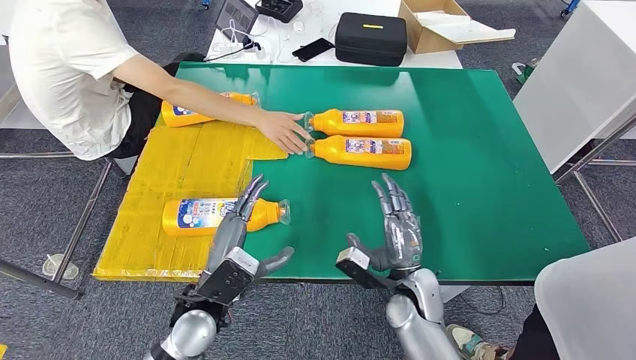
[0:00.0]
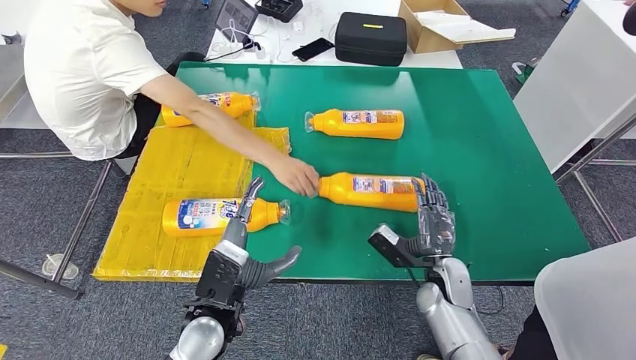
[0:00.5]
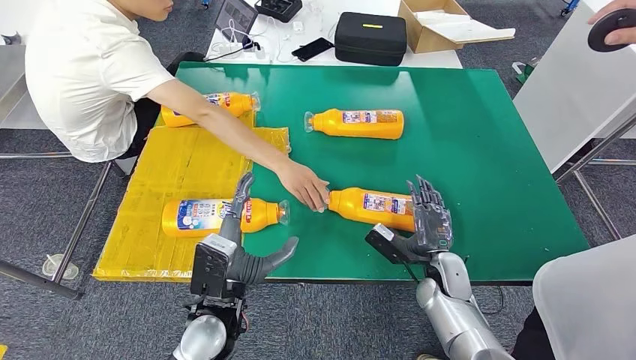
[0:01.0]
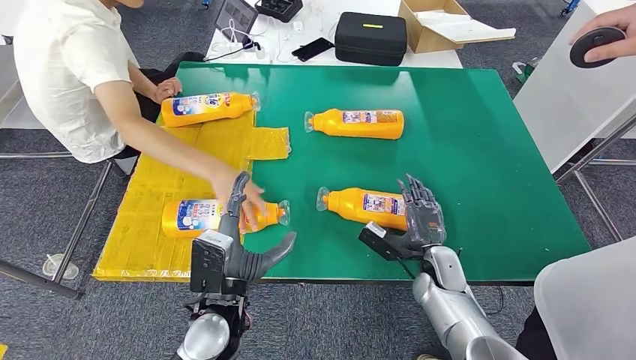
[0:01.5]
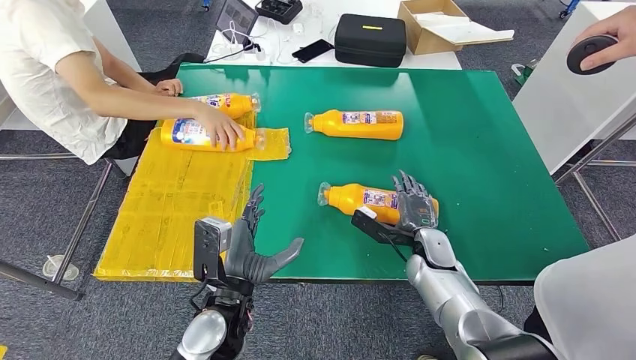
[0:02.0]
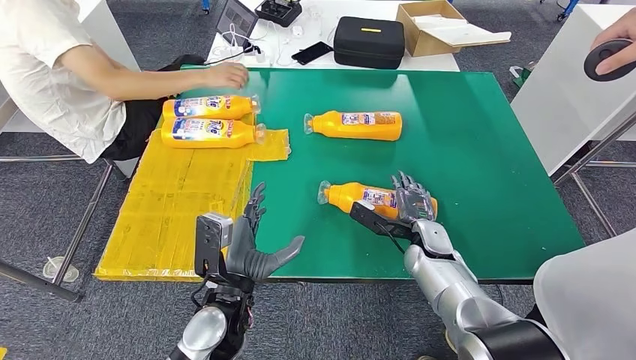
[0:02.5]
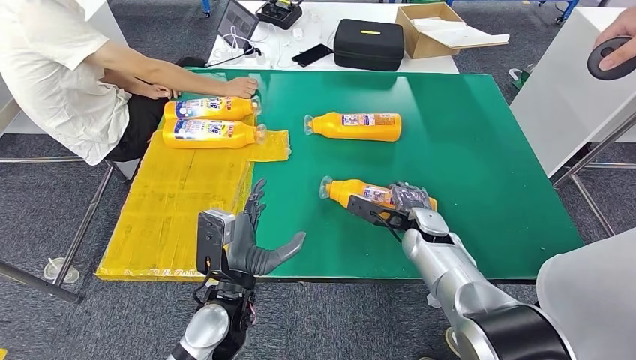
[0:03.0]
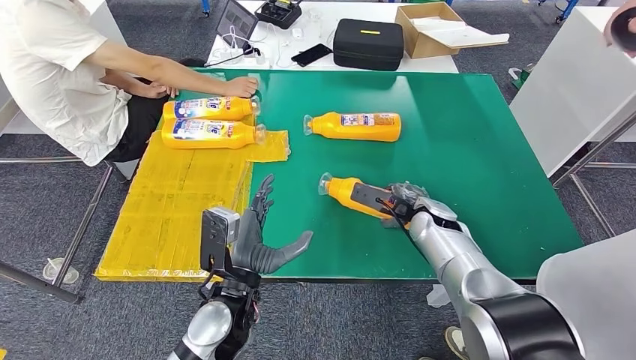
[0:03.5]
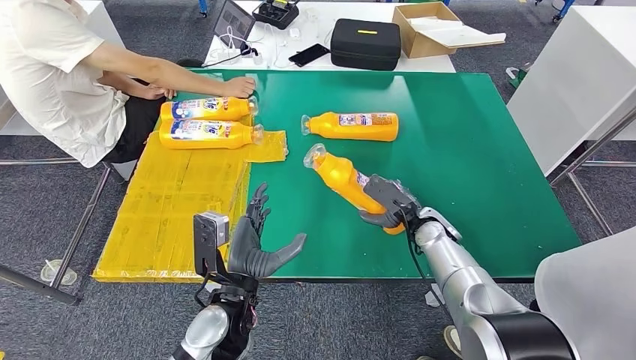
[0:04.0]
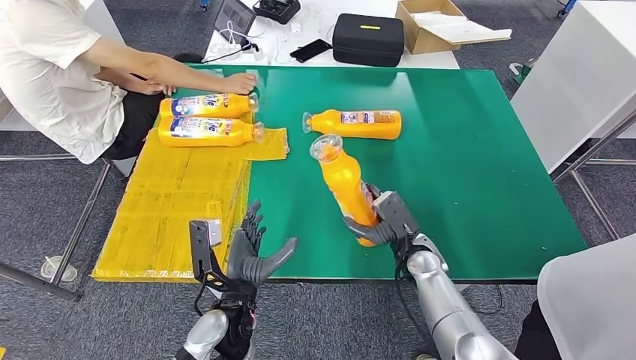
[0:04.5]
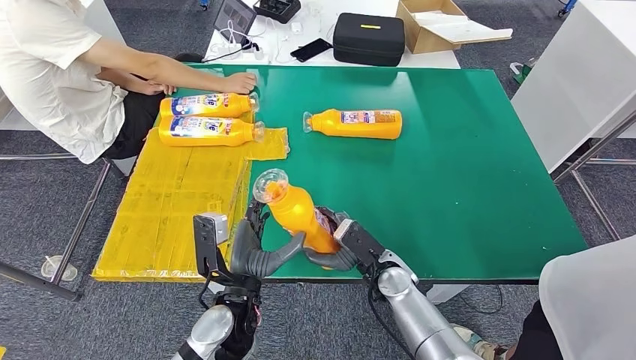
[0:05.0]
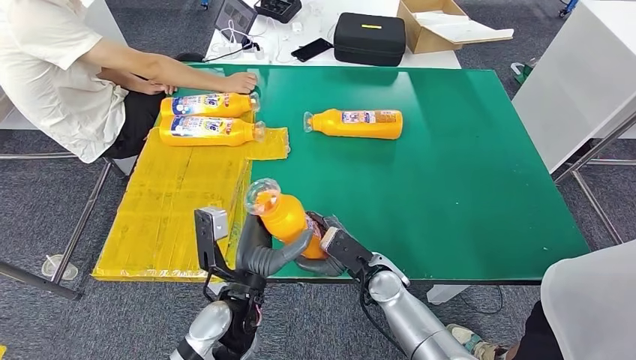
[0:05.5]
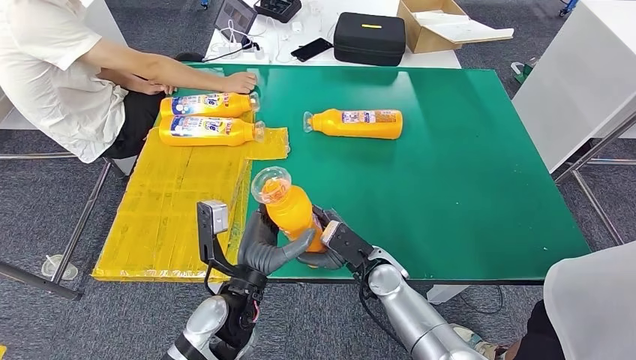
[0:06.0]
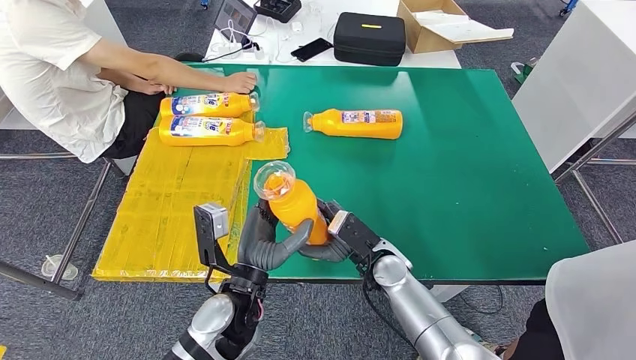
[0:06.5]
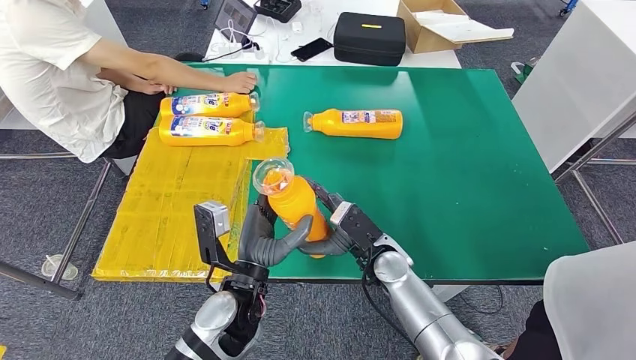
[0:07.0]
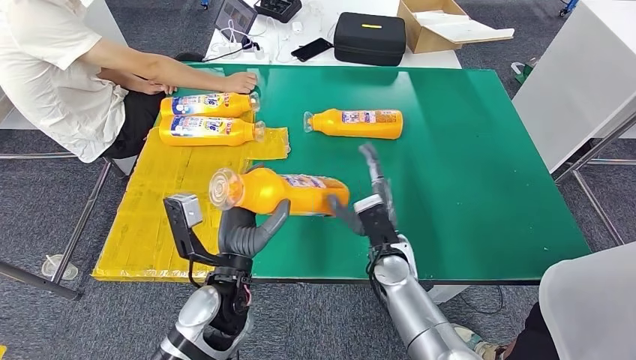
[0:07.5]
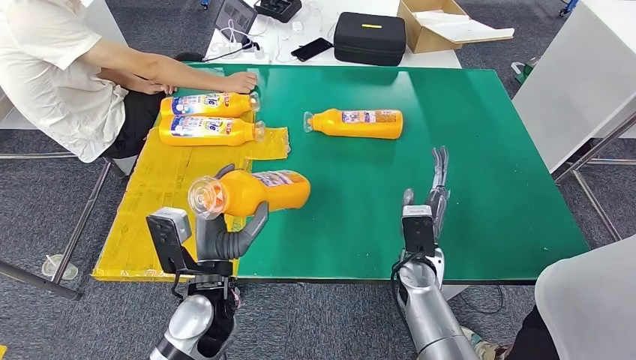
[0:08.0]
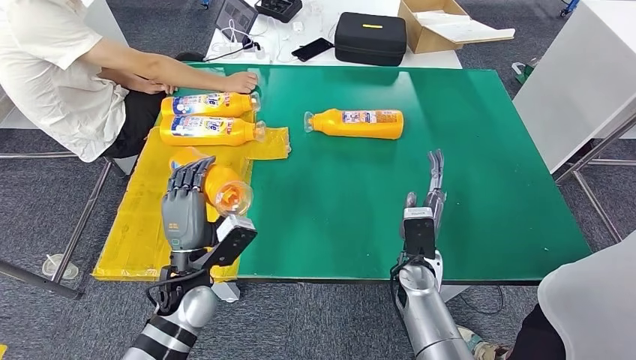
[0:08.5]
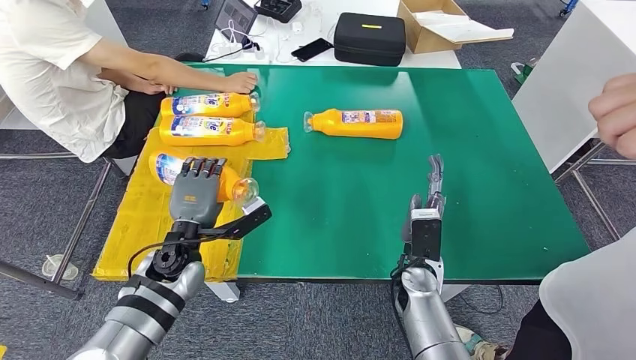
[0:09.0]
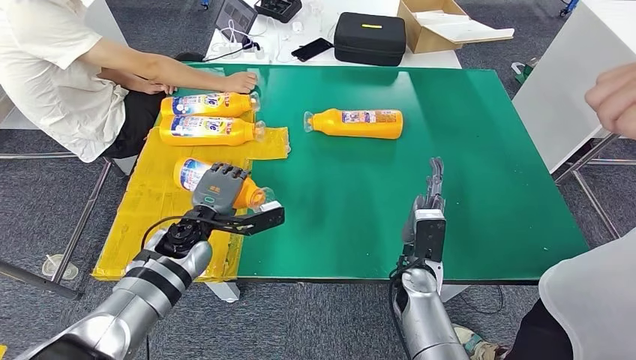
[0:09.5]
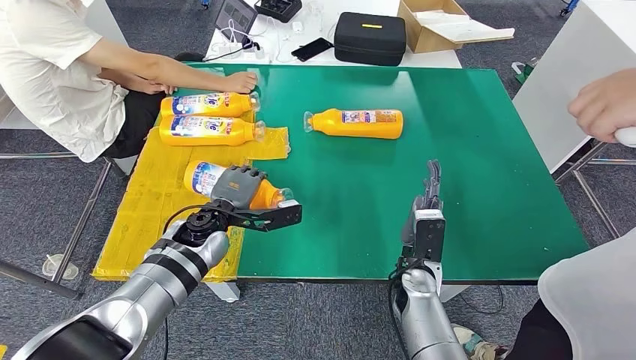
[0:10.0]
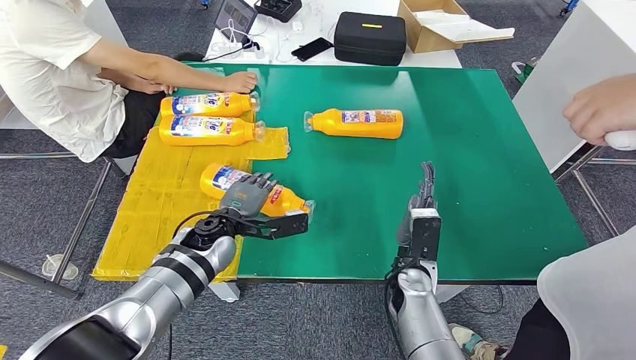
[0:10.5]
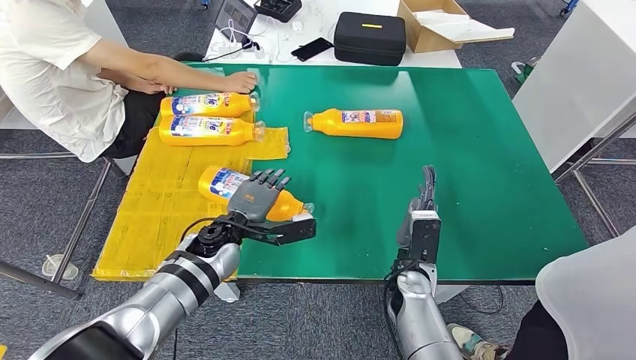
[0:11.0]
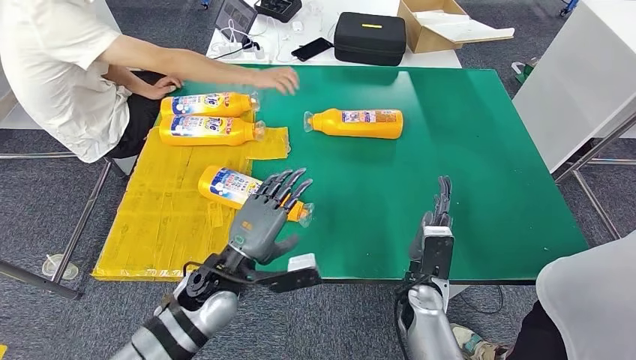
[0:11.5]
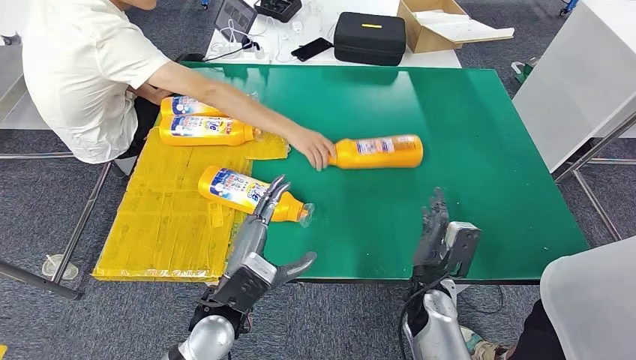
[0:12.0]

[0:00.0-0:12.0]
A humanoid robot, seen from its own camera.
Step, 0:00.5 to 0:04.5: Pick up the bottle from the table.
Step, 0:05.5 to 0:11.5: Flip the bottle to face forward.
0:06.0 to 0:08.0: The right hand goes some 5 cm to the right.
0:08.0 to 0:10.0: The left hand goes approximately 15 cm forward.

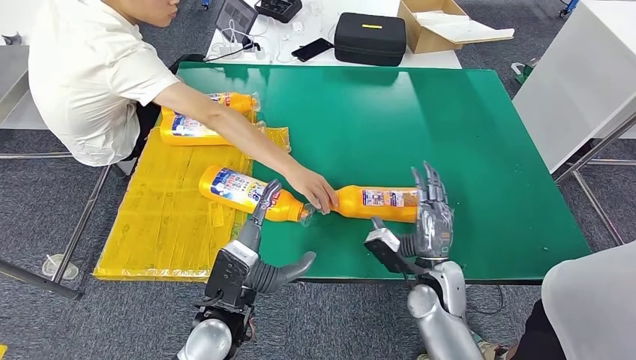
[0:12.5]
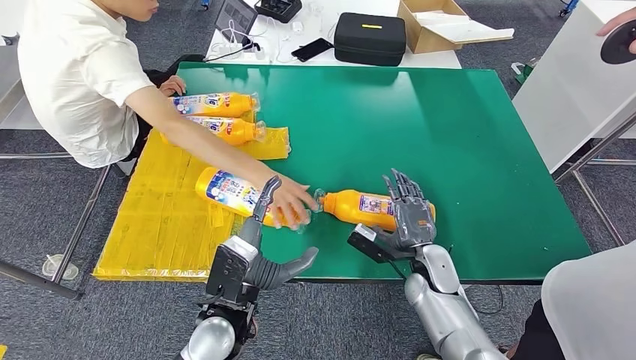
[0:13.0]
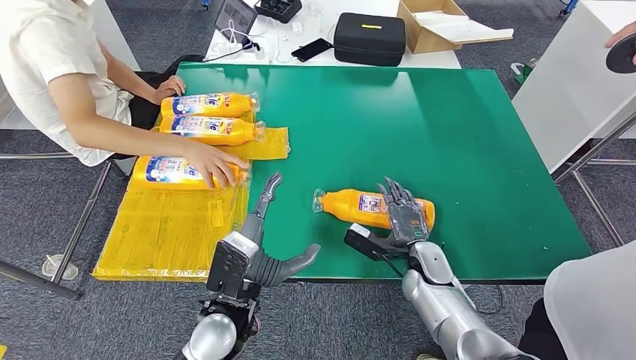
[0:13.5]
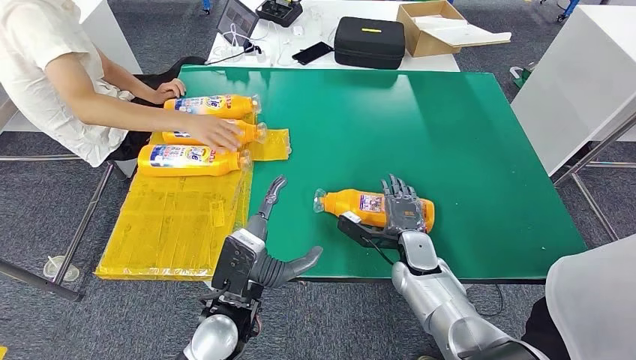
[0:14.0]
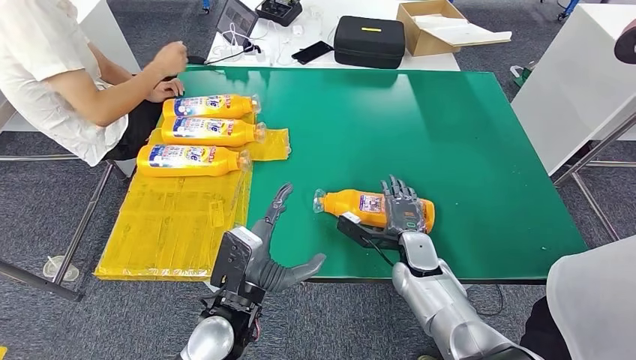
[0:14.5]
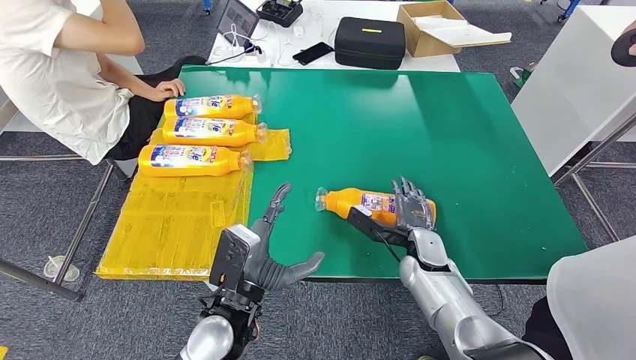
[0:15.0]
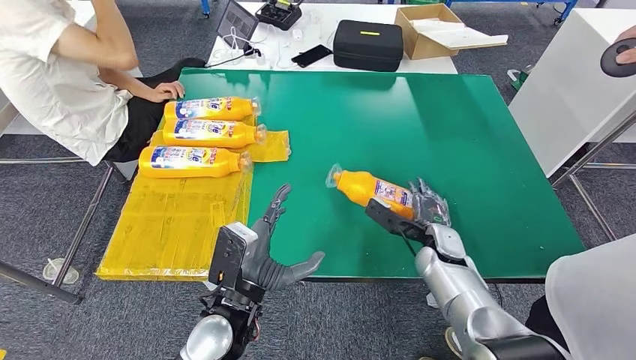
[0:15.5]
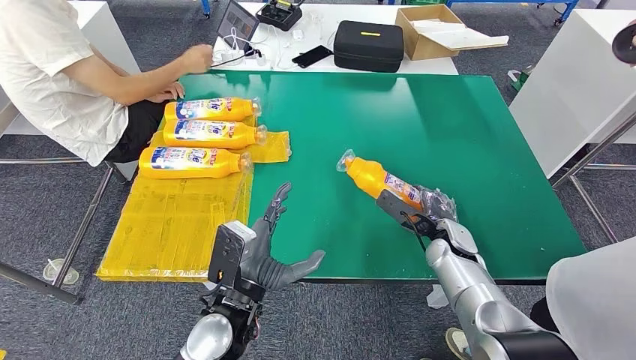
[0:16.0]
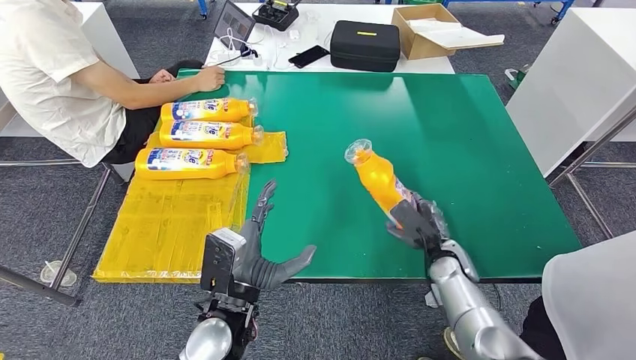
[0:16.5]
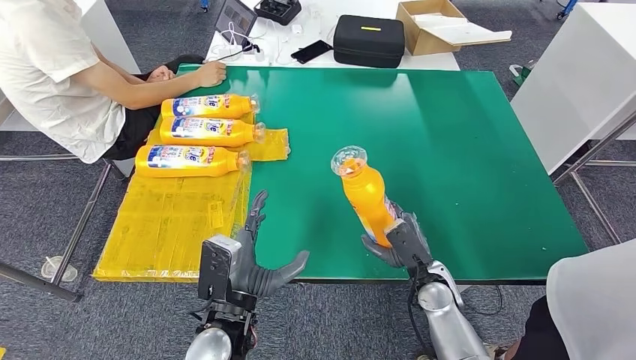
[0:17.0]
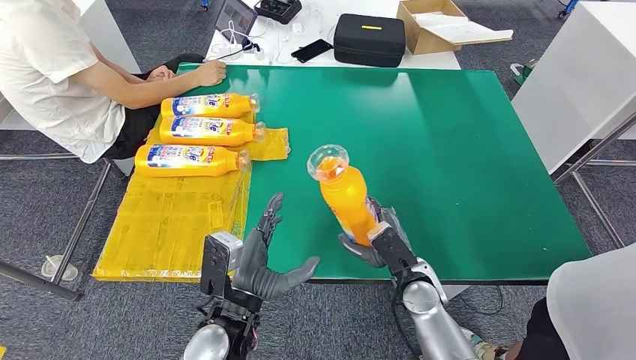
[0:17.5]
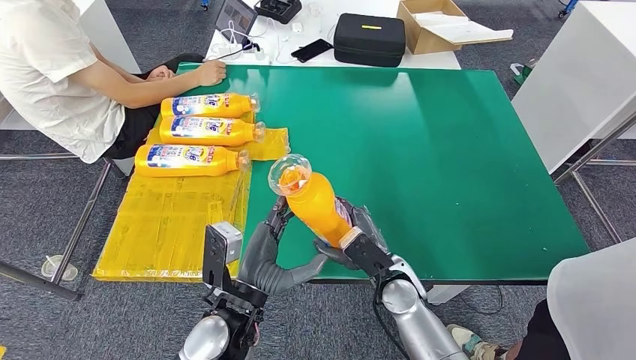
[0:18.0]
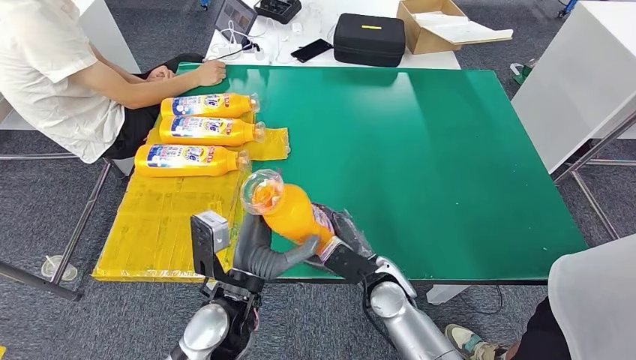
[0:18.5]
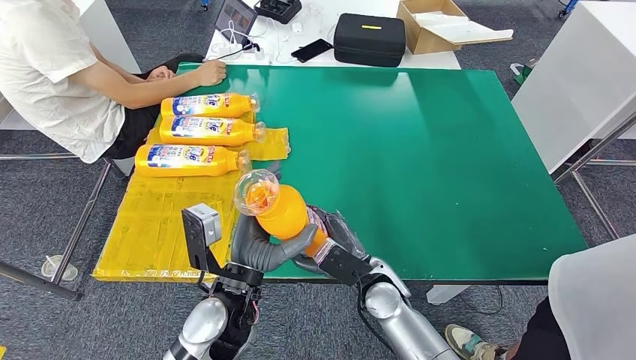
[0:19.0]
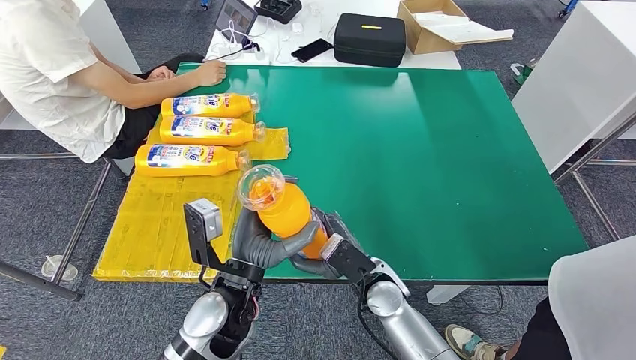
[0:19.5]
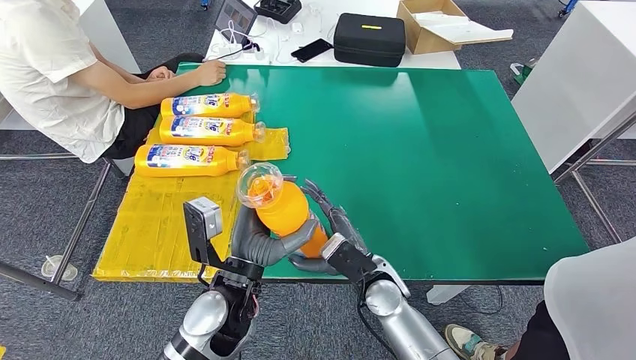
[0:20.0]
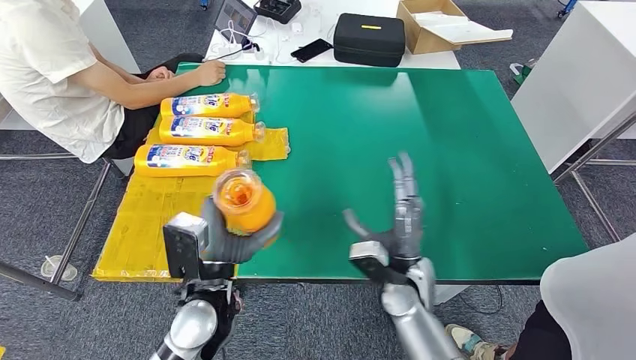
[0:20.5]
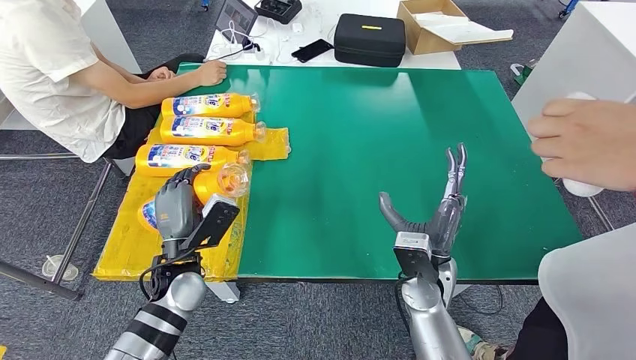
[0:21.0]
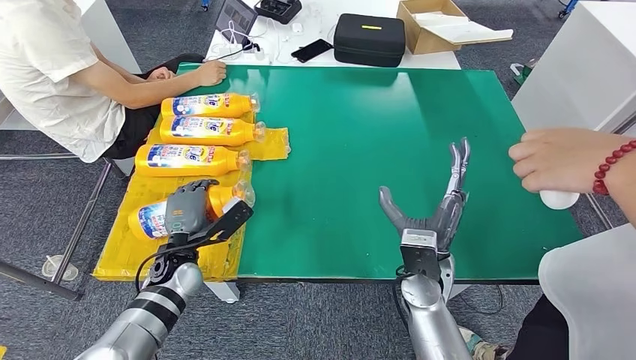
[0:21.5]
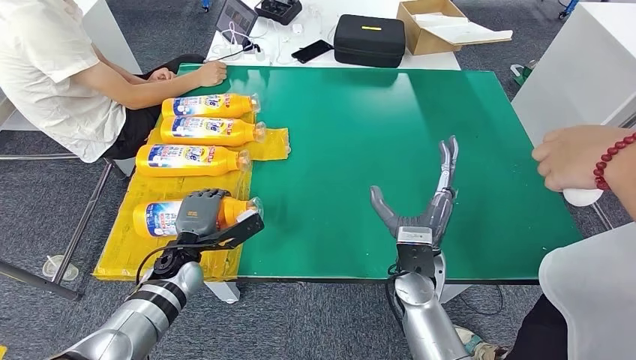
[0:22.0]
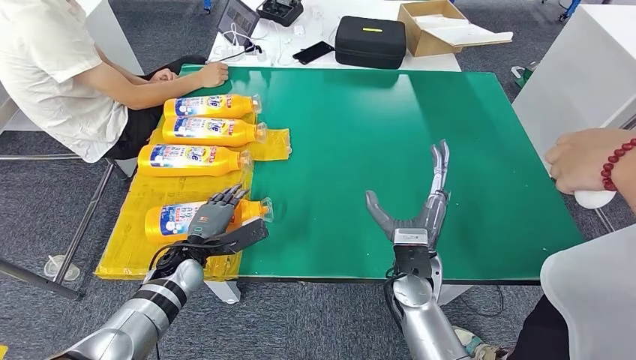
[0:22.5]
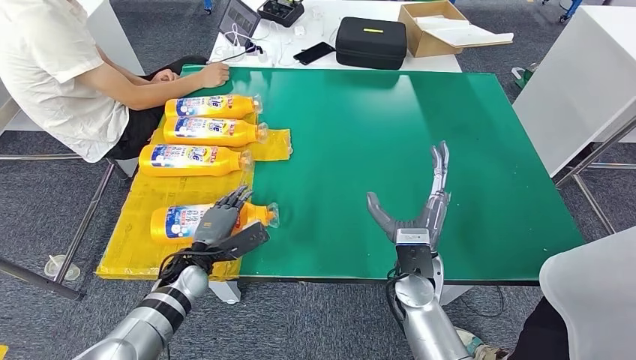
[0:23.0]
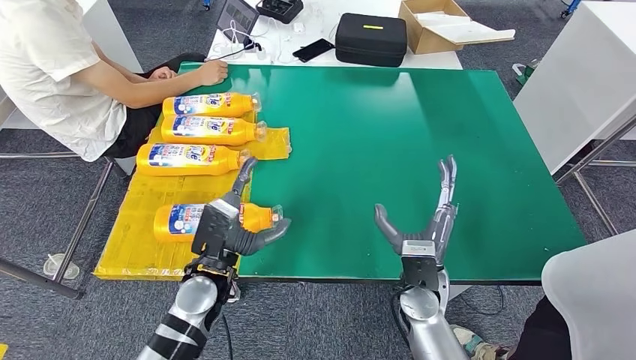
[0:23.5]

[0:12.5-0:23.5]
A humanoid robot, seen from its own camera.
Step, 0:12.5 to 0:17.0: Pick up the bottle from the table.
0:18.0 to 0:20.0: There are only small adjustments of the hands.
0:20.0 to 0:21.5: The right hand is displaced to the right by about 5 cm. The left hand moves to the left, downward and forward, some 20 cm.
0:21.5 to 0:23.5: The left hand moves to the right, about 10 cm.
